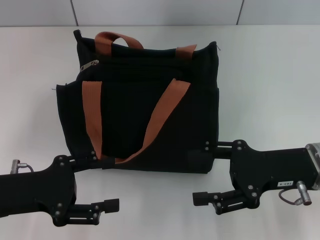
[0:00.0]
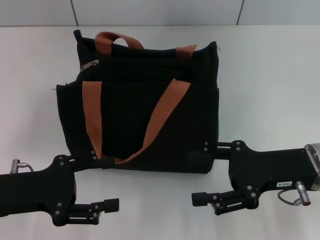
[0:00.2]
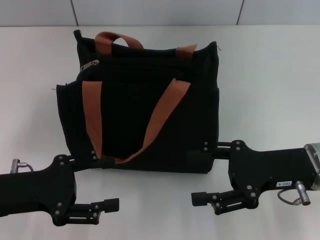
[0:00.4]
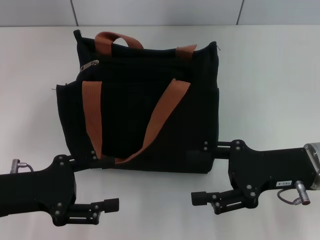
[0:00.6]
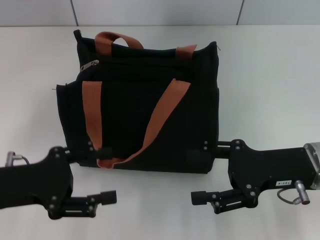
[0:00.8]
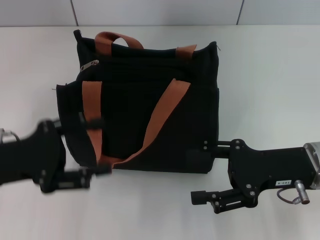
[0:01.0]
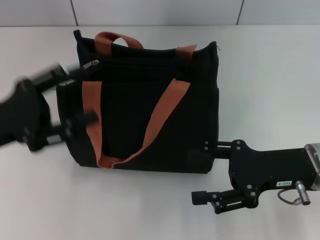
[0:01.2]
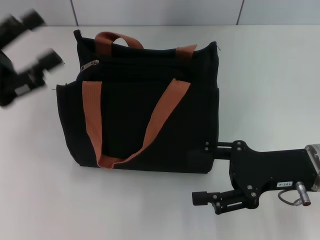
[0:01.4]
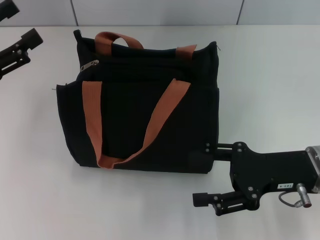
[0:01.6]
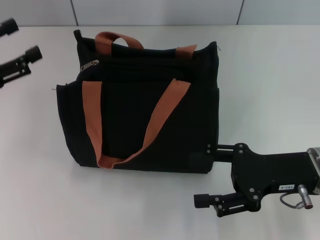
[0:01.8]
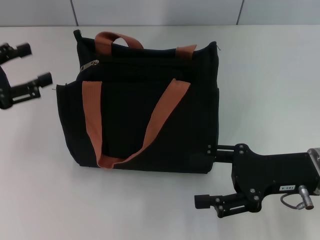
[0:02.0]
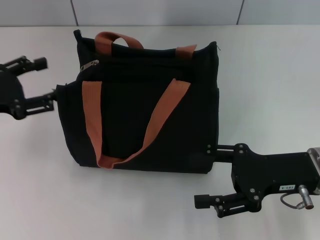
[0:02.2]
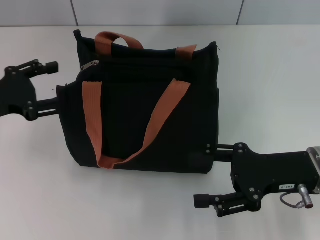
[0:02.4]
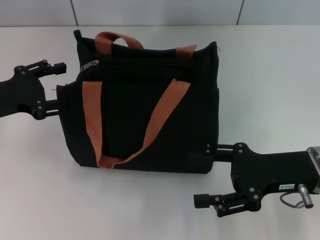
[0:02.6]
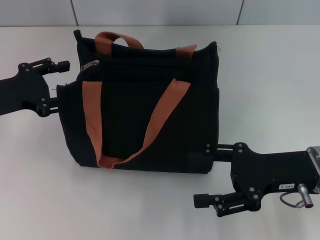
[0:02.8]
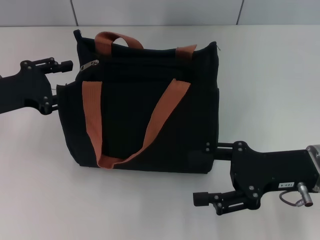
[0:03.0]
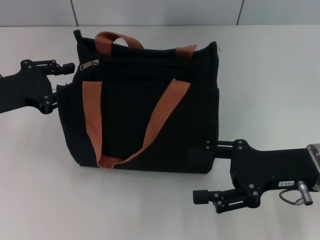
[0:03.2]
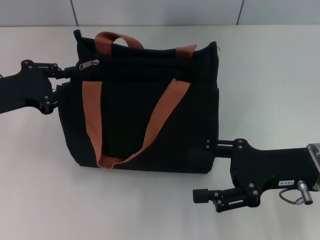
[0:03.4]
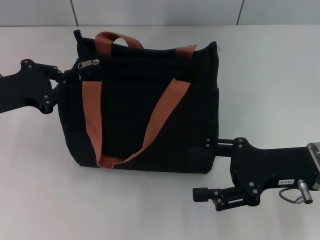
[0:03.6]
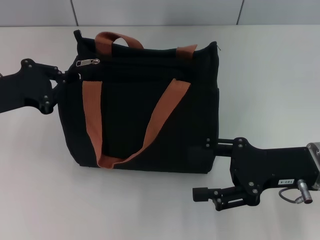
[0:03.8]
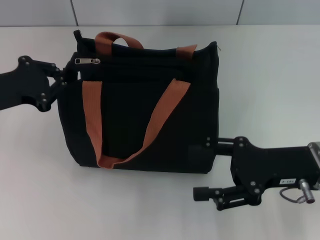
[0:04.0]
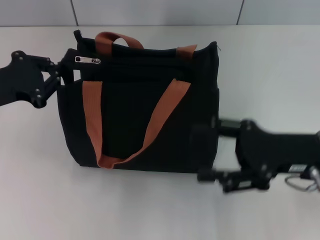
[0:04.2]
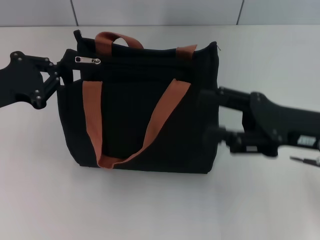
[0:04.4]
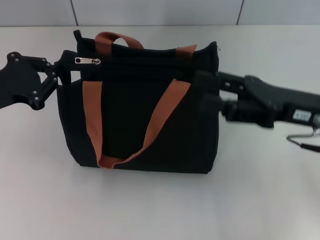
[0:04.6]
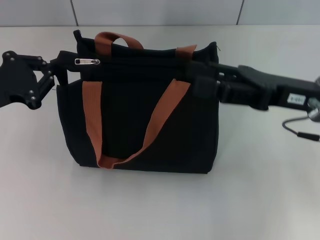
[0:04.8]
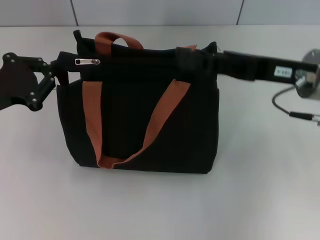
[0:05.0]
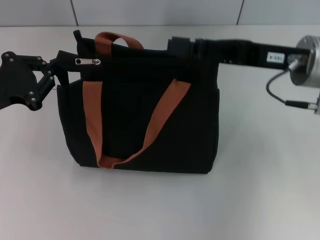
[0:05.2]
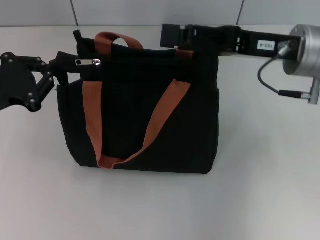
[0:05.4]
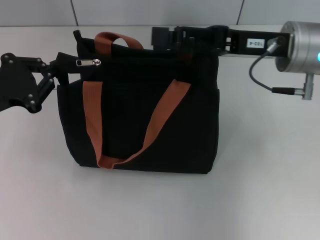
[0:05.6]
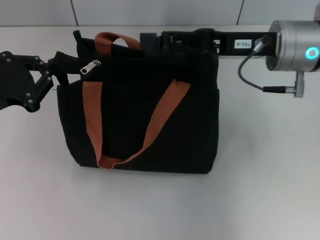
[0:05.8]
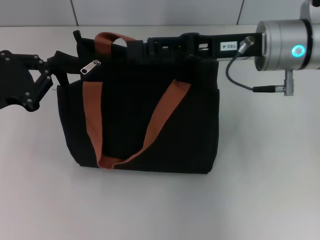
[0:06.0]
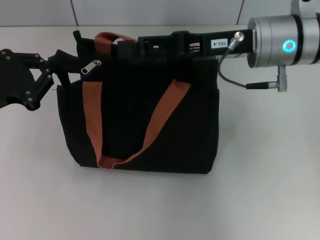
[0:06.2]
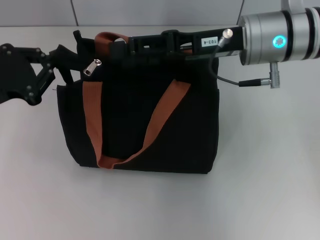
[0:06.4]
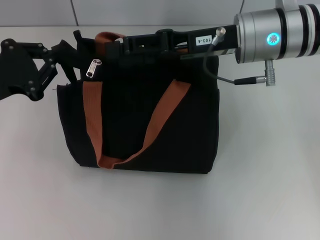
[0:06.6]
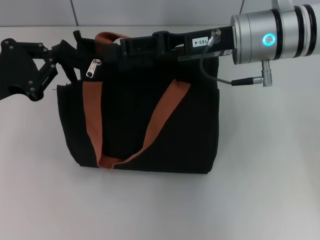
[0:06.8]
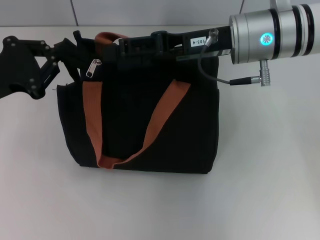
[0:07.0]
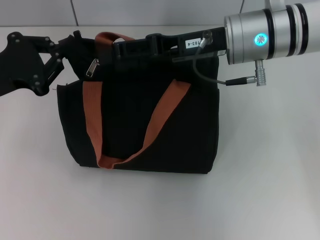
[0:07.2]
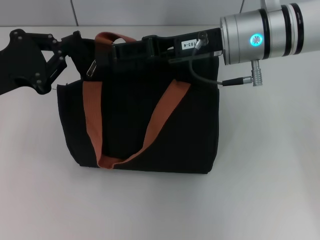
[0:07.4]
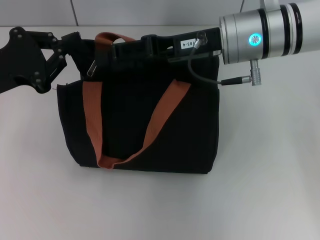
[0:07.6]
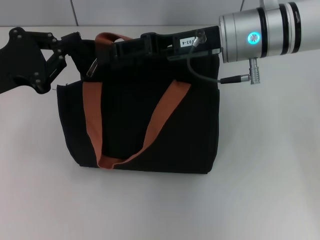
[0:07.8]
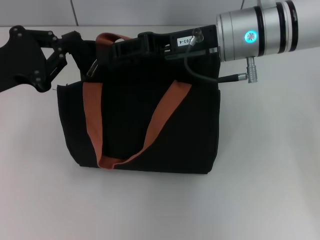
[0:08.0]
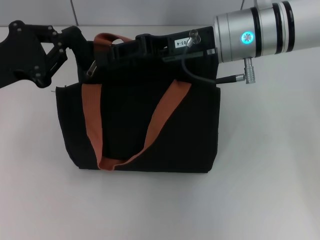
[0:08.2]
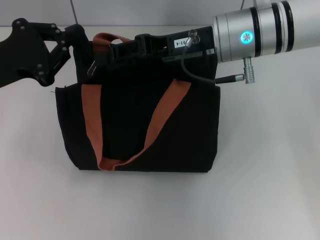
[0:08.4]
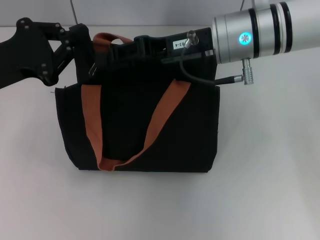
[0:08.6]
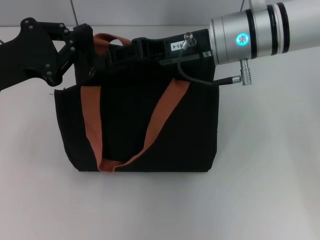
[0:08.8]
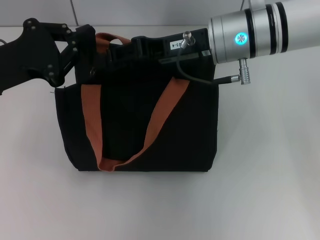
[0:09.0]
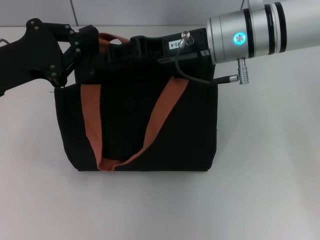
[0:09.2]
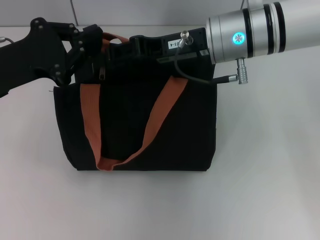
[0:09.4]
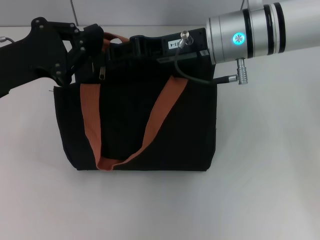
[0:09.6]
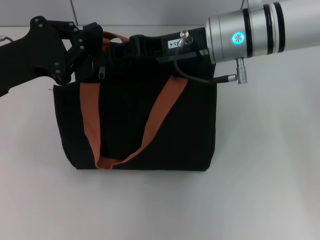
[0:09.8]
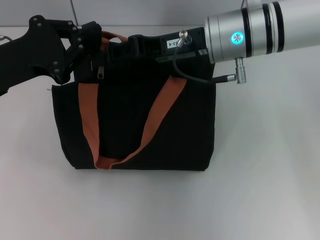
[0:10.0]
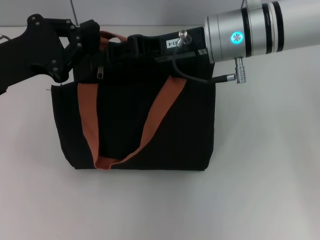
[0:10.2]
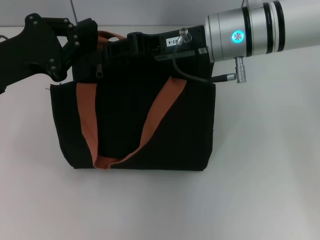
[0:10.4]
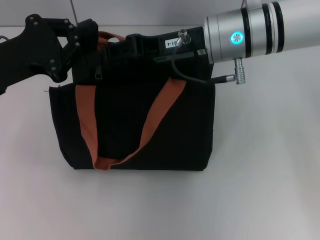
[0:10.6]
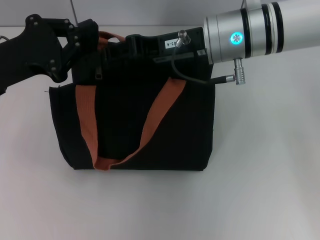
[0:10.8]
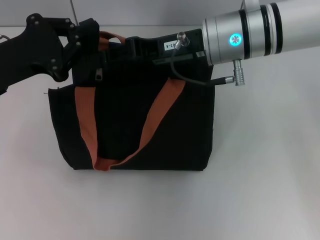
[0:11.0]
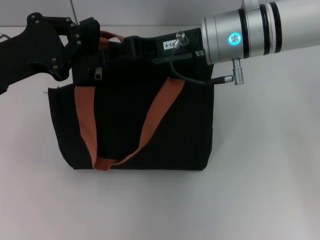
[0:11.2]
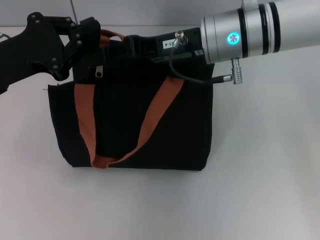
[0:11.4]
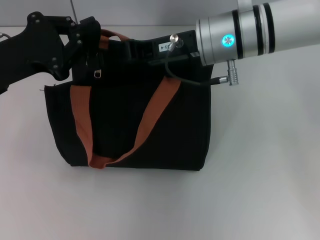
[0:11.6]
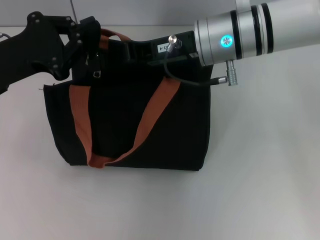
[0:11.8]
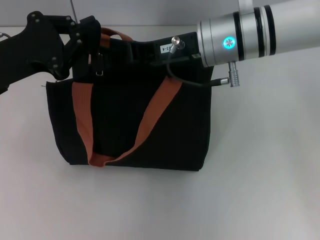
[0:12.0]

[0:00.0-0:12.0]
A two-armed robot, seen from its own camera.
0:00.0 to 0:01.6: The left gripper is displaced upward, forward and to the left by roughly 10 cm.
0:01.6 to 0:03.0: The left gripper ends up some 5 cm from where it was.
0:03.0 to 0:04.4: The left gripper closes up.
0:04.4 to 0:06.0: The right gripper heads forward, to the left and upward, covering roughly 15 cm.
0:06.0 to 0:09.0: The grippers stay close to where they were, moving slightly.
0:09.0 to 0:12.0: Both grippers stay put.

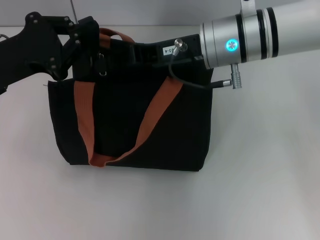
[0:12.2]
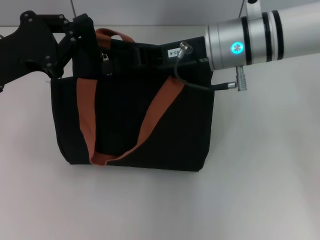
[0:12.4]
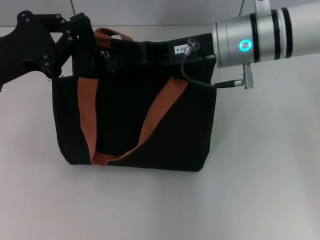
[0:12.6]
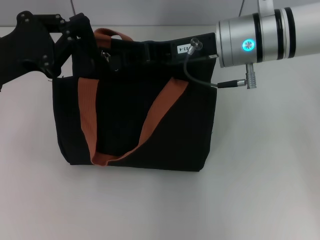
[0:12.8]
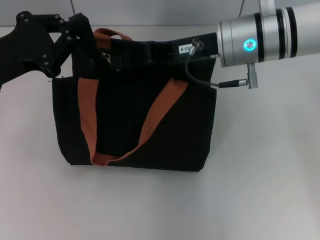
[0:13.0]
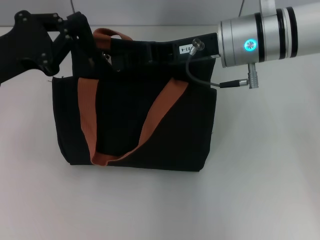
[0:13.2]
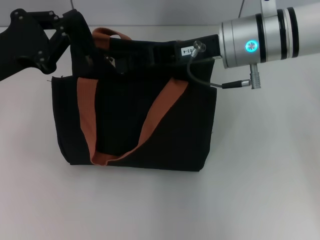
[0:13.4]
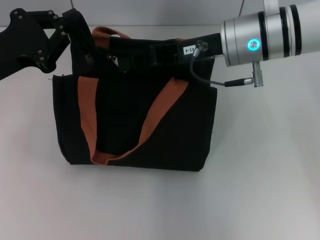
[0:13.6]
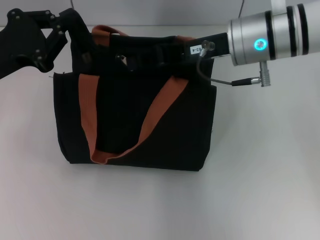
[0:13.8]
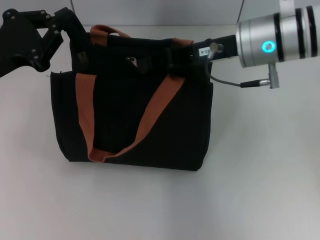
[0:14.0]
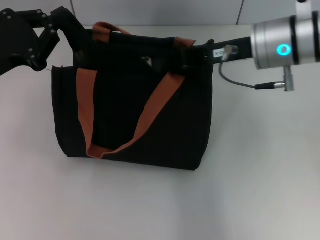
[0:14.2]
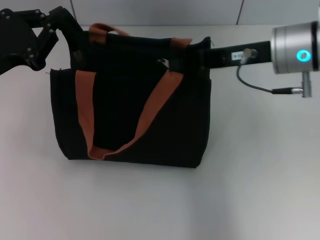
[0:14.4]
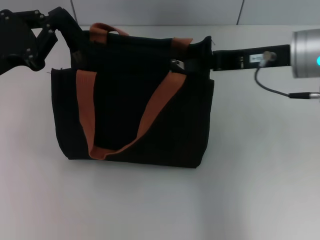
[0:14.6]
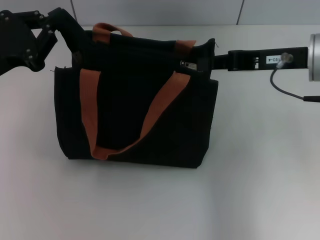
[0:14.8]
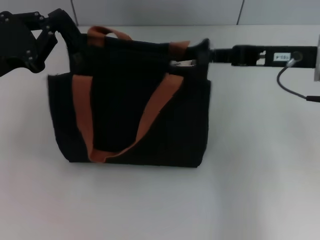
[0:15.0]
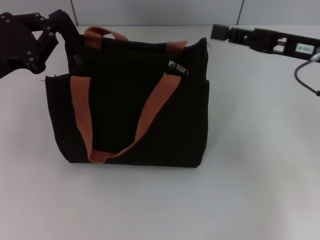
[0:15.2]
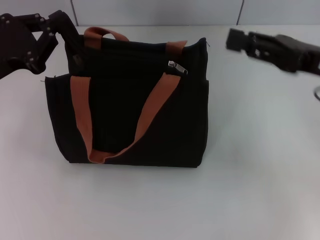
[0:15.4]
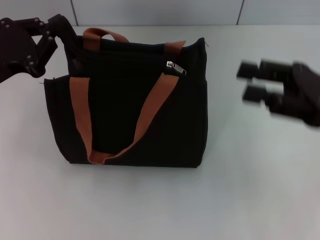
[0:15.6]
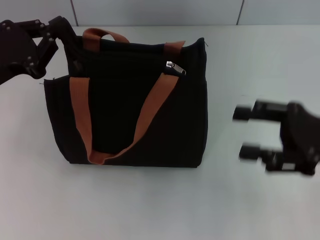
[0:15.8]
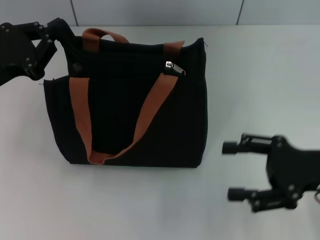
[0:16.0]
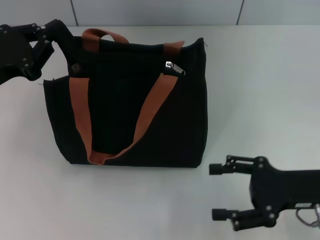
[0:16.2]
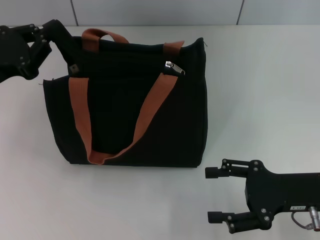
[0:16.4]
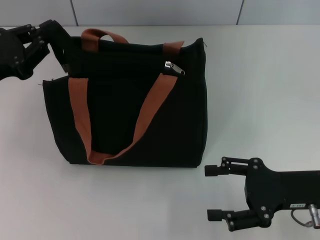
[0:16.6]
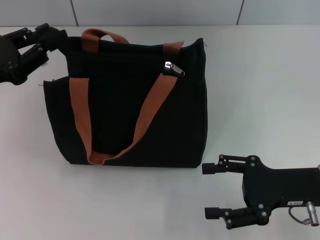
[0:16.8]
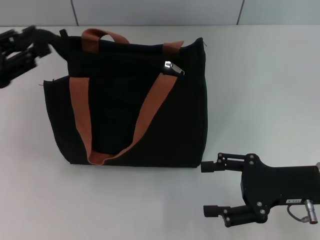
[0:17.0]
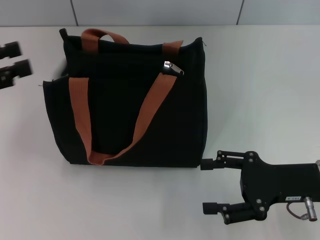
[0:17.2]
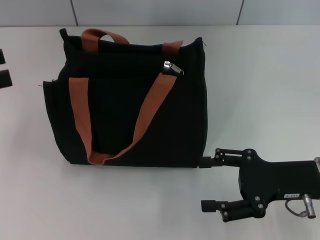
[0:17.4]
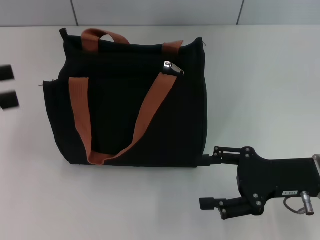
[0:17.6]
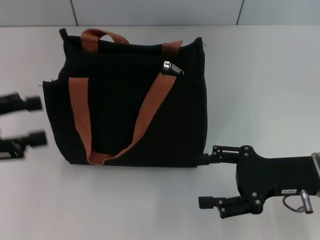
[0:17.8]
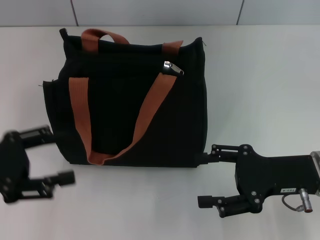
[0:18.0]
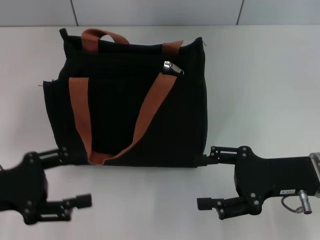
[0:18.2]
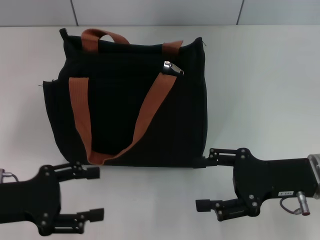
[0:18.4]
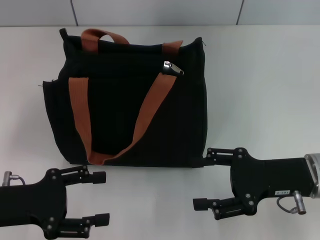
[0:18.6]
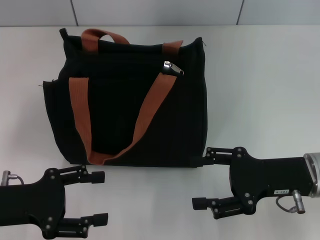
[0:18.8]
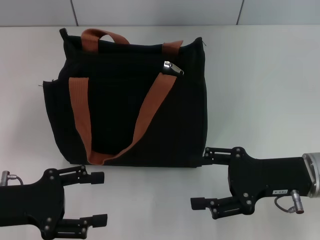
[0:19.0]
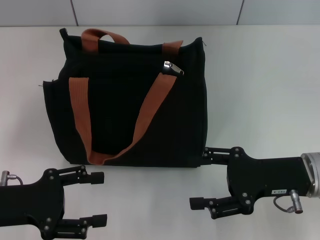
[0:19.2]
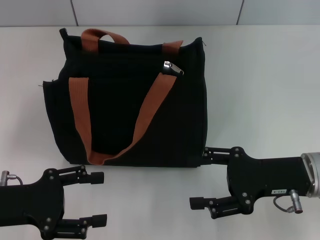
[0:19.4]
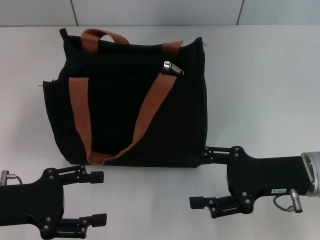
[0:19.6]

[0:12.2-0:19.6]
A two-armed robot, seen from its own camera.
Step, 0:12.2 to 0:14.8: Pull up the zipper with your right hand.
Step, 0:15.2 to 0:17.0: Grab the zipper with your left hand.
0:12.2 to 0:13.6: There are only small adjustments of the grippers.
0:13.6 to 0:15.2: The right gripper travels to the right by roughly 15 cm.
0:15.2 to 0:16.6: The right gripper heads downward and backward, covering about 15 cm, and opens.
0:16.6 to 0:18.2: The left gripper moves backward, roughly 10 cm, and opens its fingers.
0:18.2 to 0:19.6: The grippers move only a little.

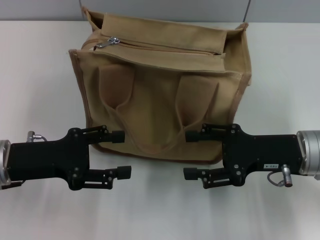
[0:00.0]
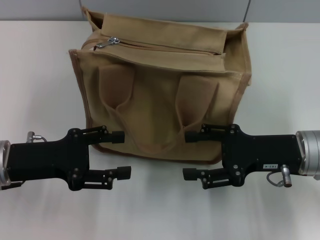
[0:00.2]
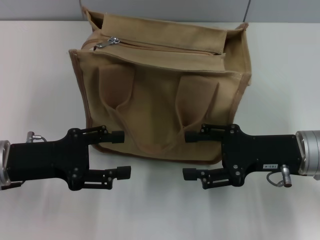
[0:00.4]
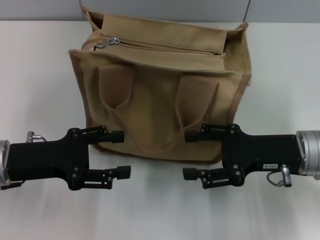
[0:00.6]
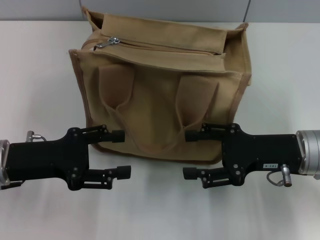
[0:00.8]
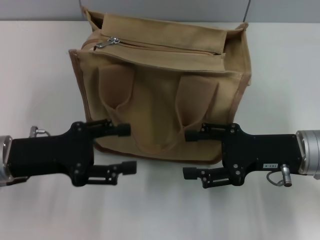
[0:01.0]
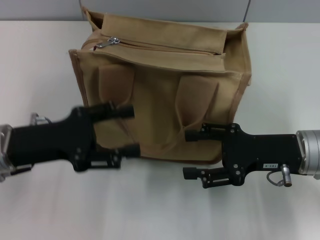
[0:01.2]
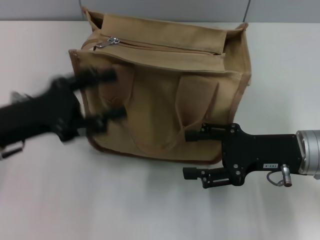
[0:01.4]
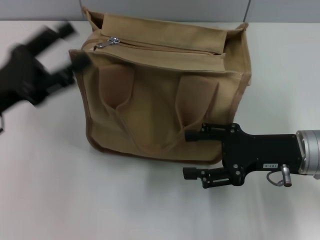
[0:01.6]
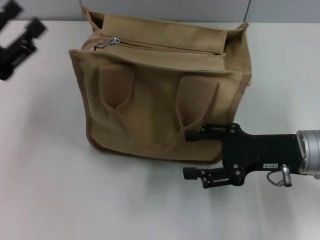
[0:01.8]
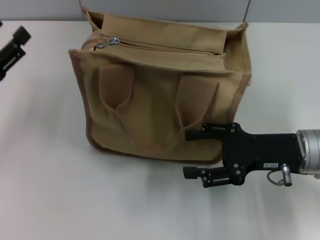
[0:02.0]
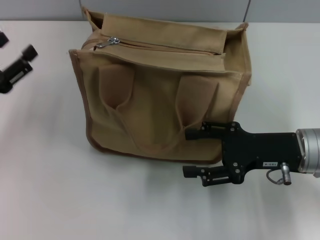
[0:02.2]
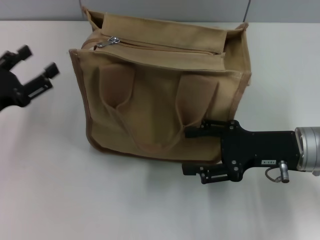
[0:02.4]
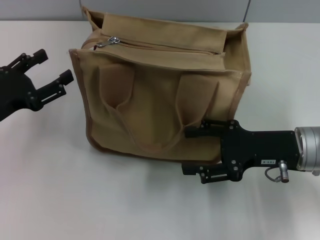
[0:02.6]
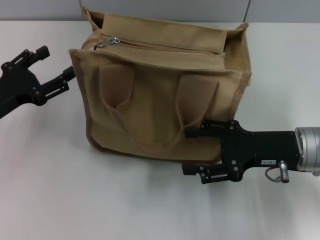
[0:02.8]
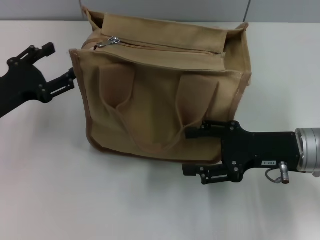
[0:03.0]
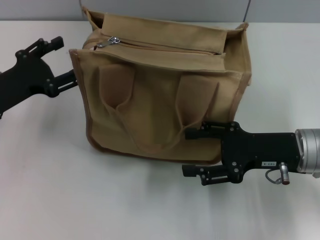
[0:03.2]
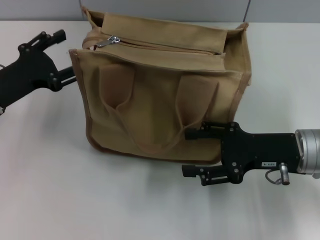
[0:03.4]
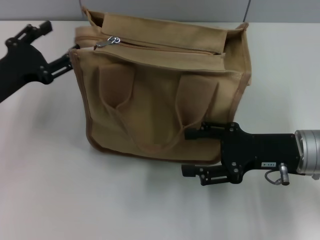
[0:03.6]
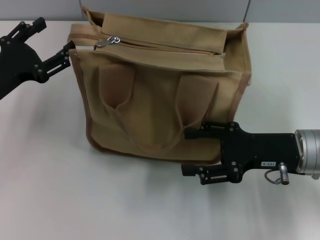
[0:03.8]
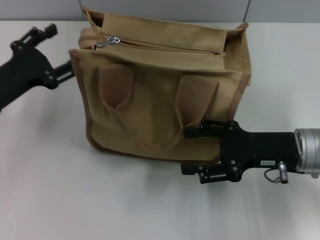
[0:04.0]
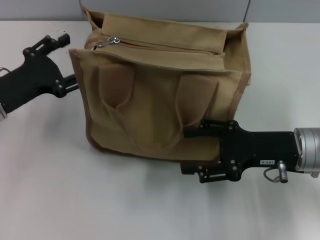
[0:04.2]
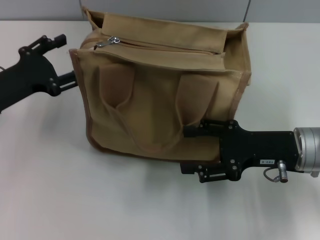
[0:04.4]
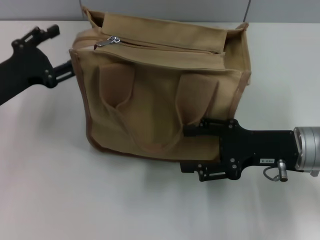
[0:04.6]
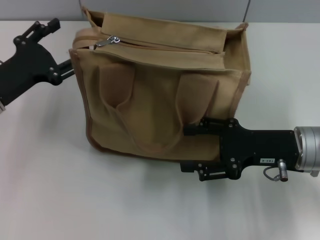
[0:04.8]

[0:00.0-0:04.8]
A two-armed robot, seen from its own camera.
0:01.6 to 0:03.2: The left gripper shifts by approximately 5 cm.
0:03.2 to 0:04.8: The grippers stay close to where they were, moving slightly.
